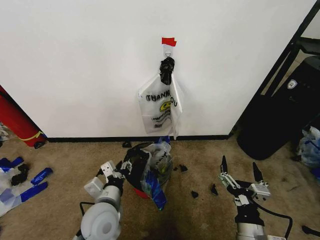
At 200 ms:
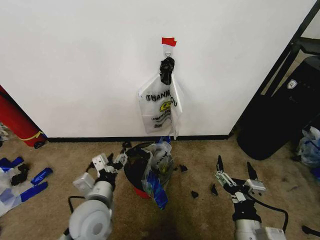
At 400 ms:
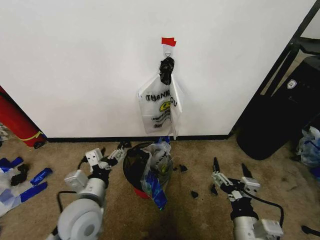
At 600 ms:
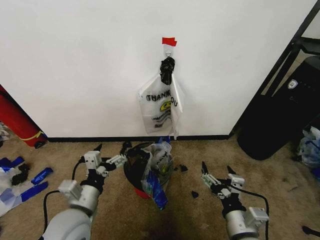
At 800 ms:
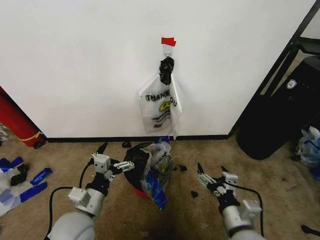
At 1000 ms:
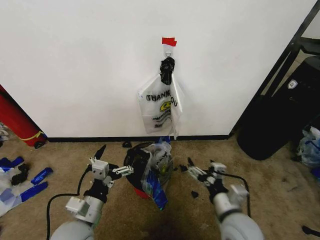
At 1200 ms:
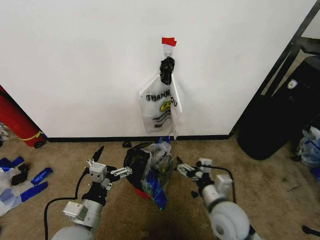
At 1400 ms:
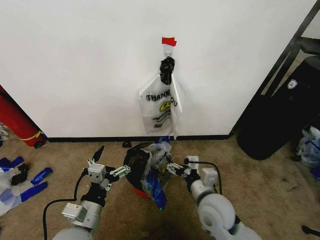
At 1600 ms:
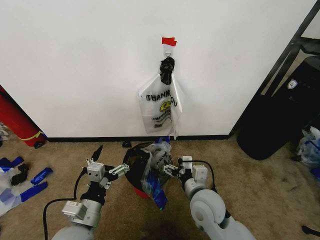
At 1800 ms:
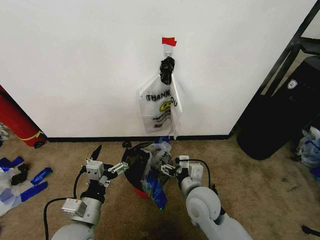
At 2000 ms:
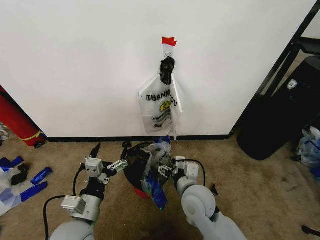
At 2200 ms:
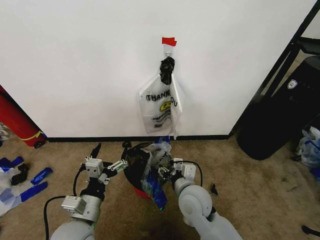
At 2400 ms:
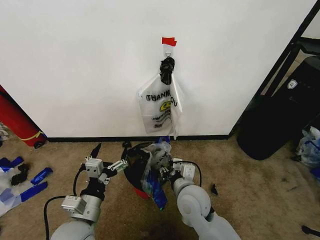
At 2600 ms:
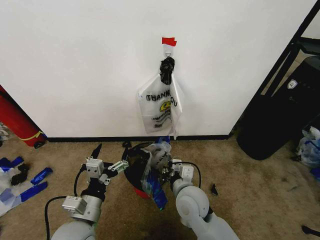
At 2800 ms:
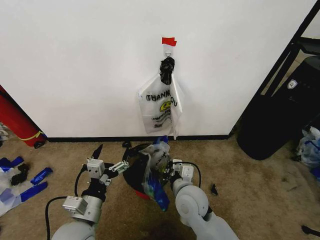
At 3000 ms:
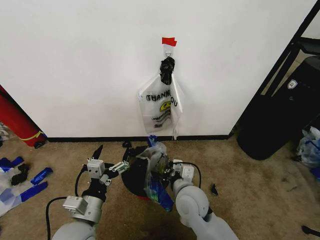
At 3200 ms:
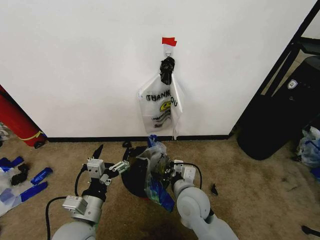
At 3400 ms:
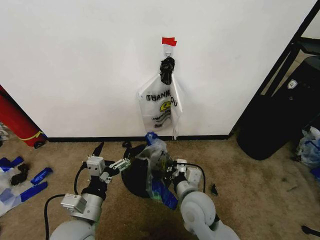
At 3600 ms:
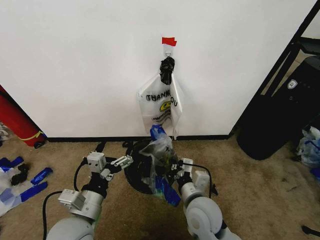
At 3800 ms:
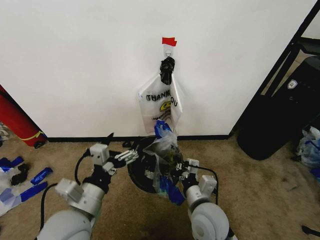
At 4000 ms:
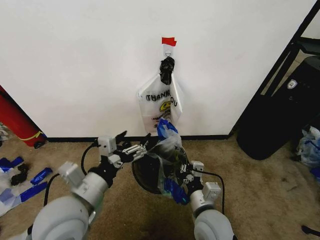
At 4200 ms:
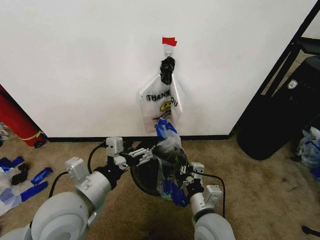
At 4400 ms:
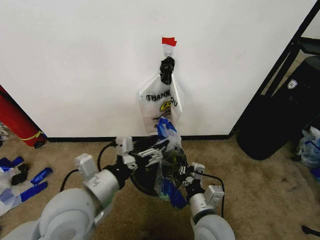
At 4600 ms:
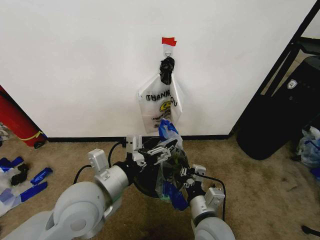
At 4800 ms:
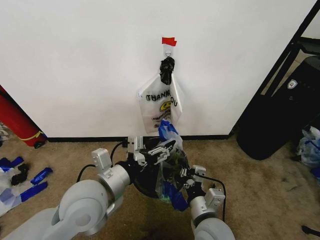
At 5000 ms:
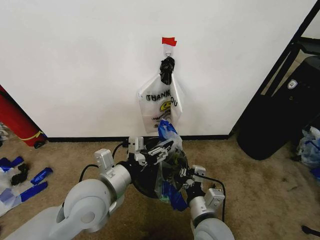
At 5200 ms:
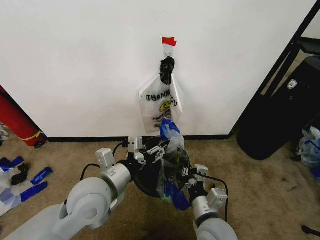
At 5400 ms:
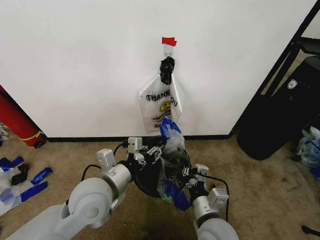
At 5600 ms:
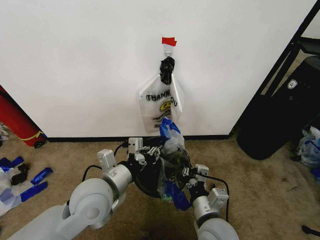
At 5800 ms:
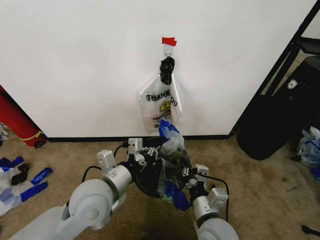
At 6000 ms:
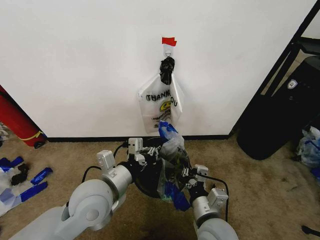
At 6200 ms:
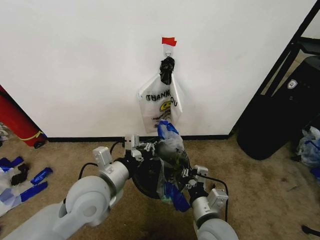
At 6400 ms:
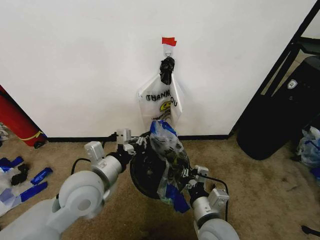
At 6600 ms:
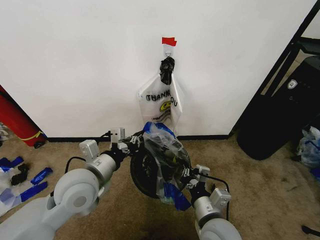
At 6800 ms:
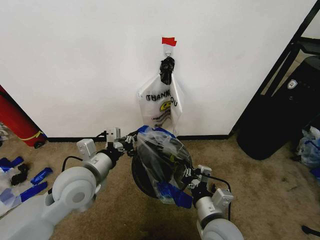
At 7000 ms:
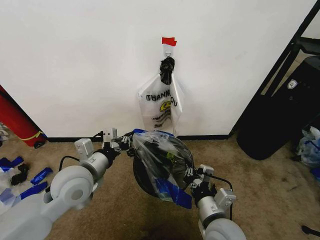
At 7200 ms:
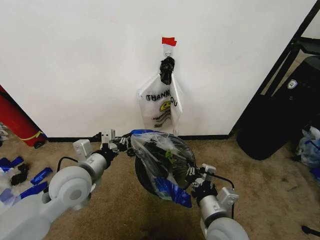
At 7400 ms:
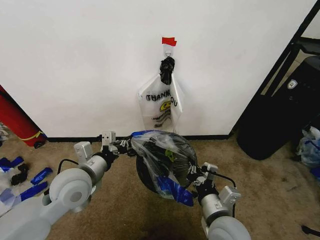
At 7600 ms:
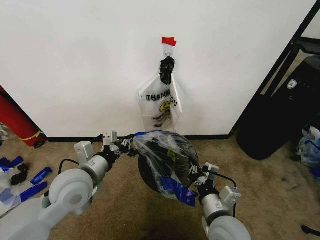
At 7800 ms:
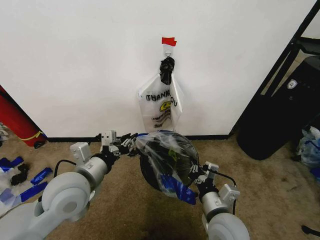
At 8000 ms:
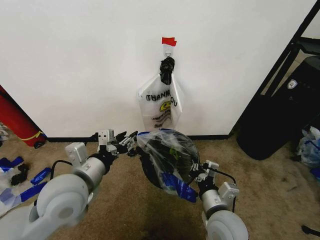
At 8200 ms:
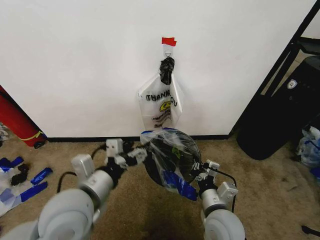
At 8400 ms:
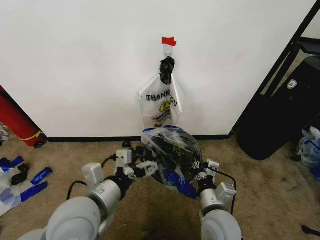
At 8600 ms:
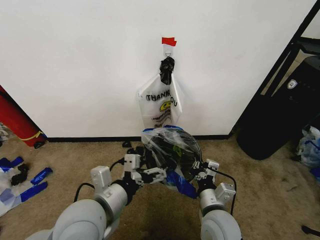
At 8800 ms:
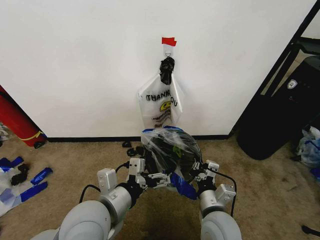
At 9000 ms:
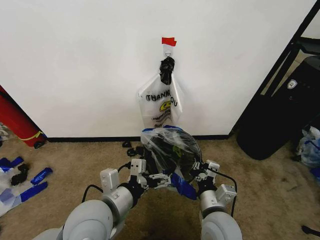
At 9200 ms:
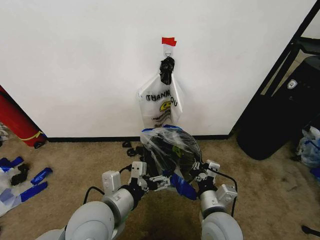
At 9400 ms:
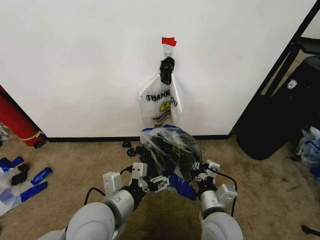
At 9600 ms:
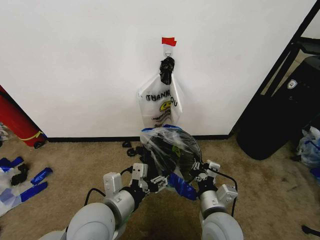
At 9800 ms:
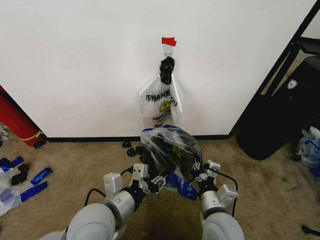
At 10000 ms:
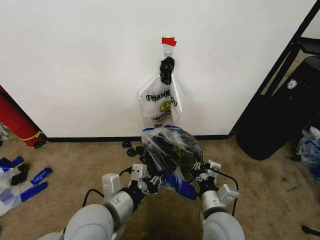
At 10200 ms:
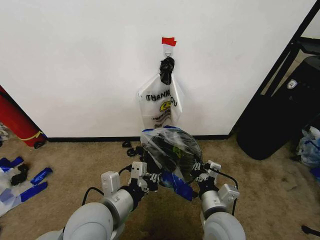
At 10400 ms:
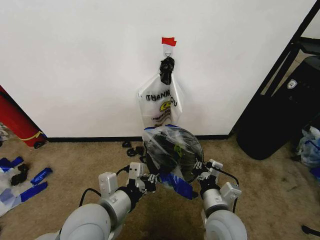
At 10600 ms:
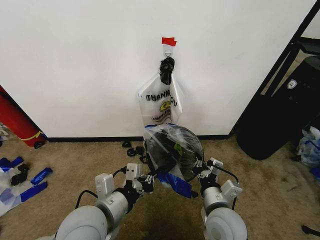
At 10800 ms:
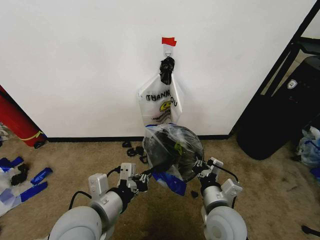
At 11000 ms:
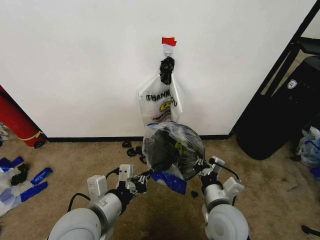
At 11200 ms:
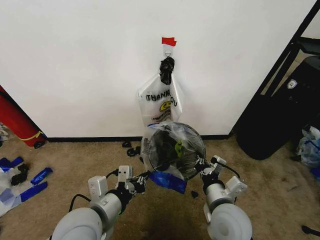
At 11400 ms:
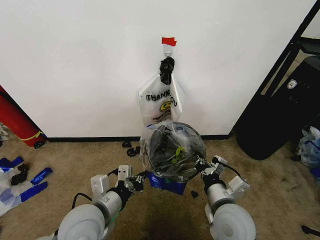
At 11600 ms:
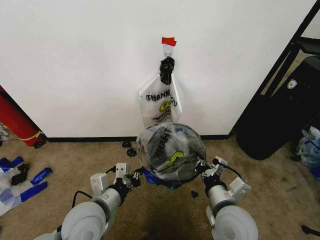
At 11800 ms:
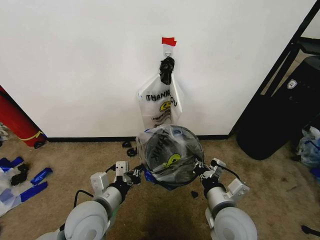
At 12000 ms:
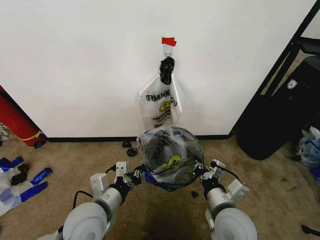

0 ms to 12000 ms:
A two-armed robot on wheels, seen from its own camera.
Task of the whole recording: Pick up the garbage bag from the wall and place it over the trash bin.
0 ms to 1600 ms: The right gripper shifts roughly 15 cm forward and to the left. Meanwhile the left gripper goes about 10 cm backward and to the left, and opens.
1600 ms to 3000 ms: The right gripper closes.
3000 ms to 4400 ms: The left gripper shifts about 10 cm upward; the right gripper shifts about 10 cm backward.
4400 ms to 6000 ms: The left gripper ends up roughly 5 cm from where it was, and closes up.
6000 ms to 7600 ms: The left gripper travels to the left by roughly 5 cm.
7600 ms to 9000 ms: The left gripper heads backward and to the right, covering roughly 10 cm, and opens its fingers.
9000 ms to 10400 ms: The left gripper closes its fingers.
10400 ms to 12000 ms: The left gripper changes place by about 5 cm.

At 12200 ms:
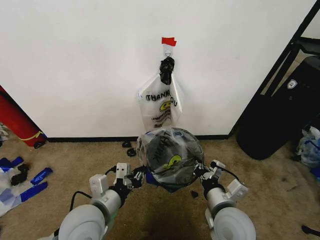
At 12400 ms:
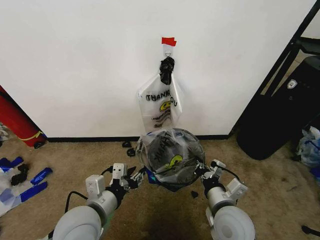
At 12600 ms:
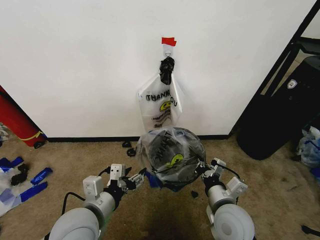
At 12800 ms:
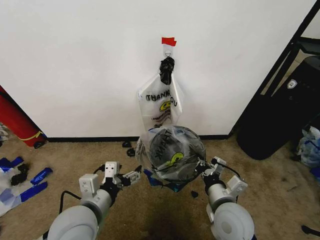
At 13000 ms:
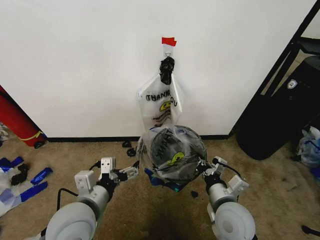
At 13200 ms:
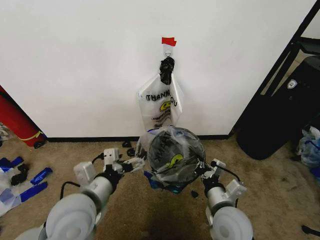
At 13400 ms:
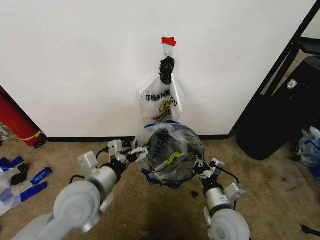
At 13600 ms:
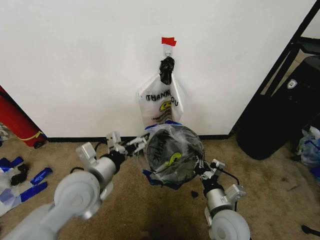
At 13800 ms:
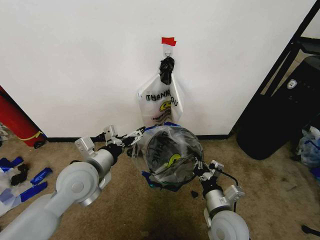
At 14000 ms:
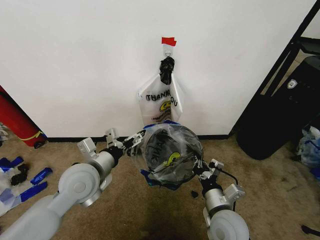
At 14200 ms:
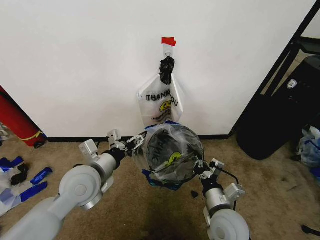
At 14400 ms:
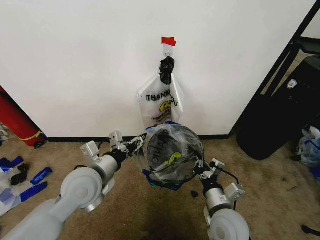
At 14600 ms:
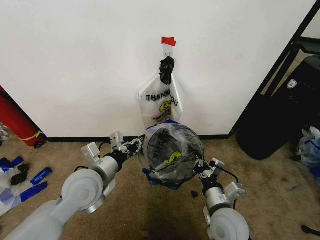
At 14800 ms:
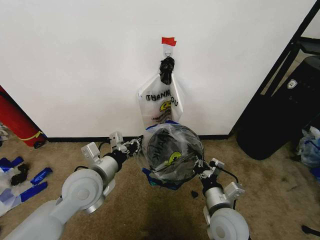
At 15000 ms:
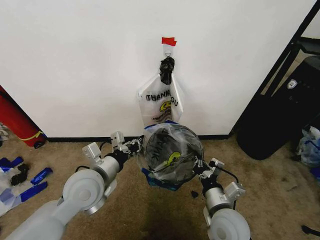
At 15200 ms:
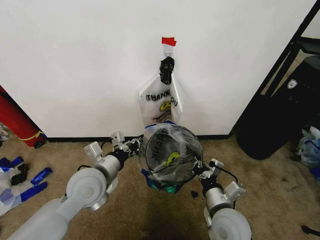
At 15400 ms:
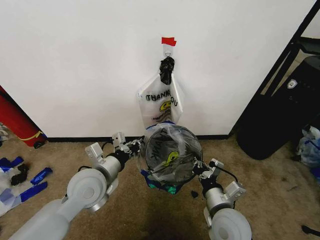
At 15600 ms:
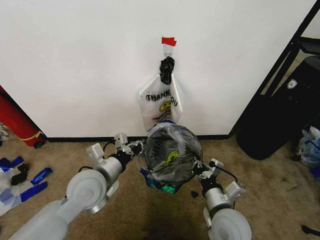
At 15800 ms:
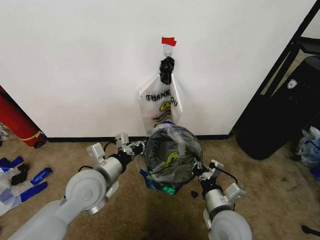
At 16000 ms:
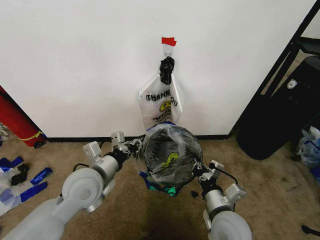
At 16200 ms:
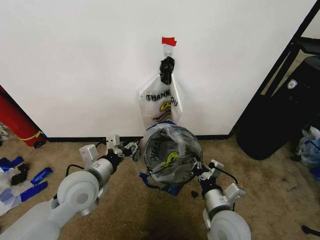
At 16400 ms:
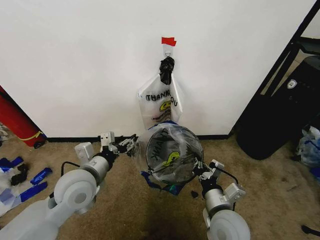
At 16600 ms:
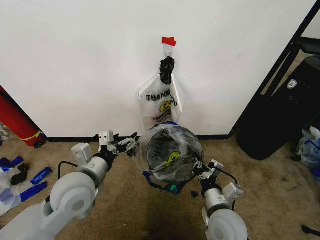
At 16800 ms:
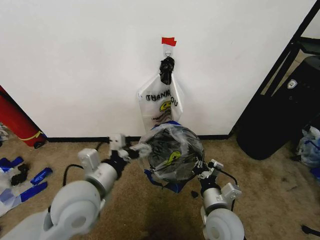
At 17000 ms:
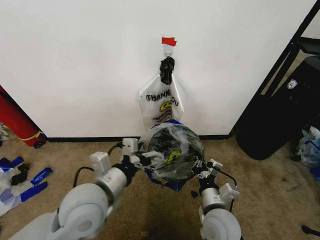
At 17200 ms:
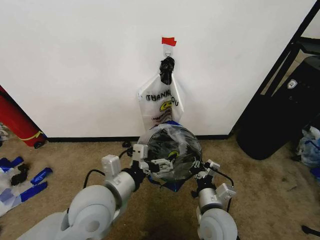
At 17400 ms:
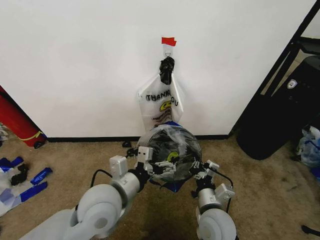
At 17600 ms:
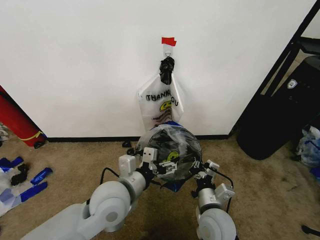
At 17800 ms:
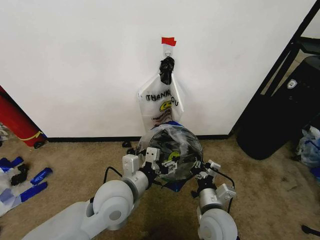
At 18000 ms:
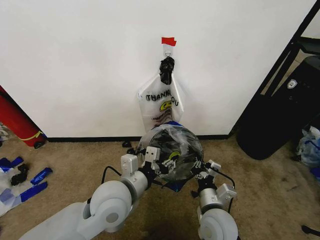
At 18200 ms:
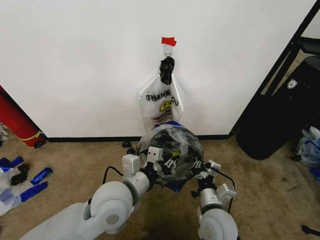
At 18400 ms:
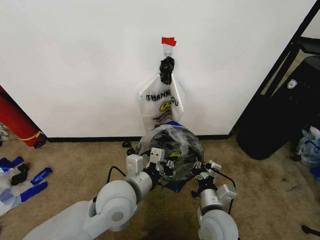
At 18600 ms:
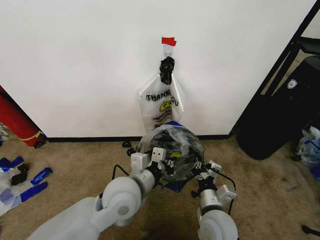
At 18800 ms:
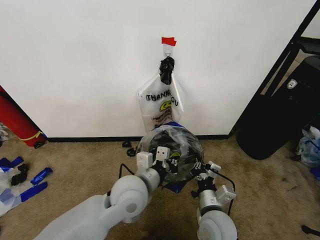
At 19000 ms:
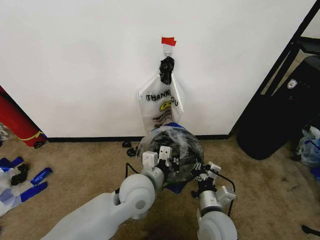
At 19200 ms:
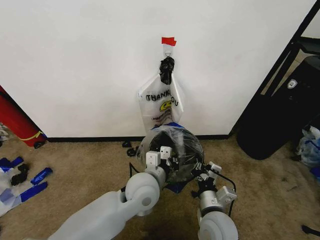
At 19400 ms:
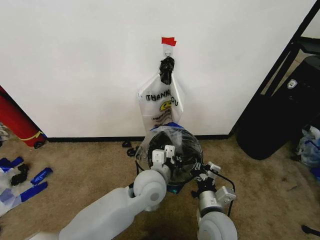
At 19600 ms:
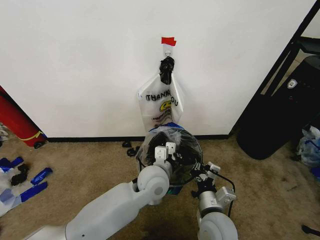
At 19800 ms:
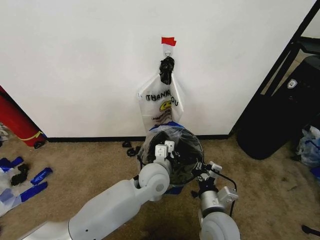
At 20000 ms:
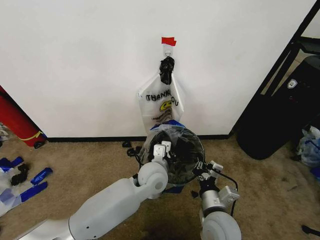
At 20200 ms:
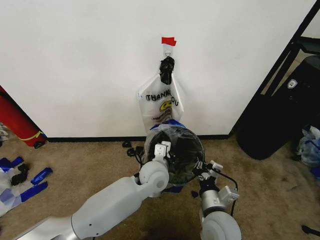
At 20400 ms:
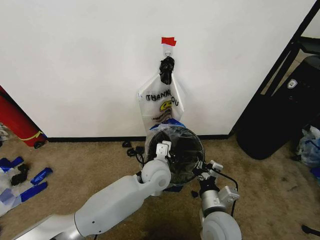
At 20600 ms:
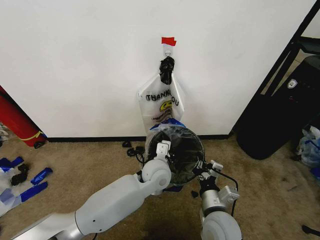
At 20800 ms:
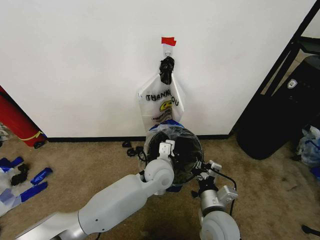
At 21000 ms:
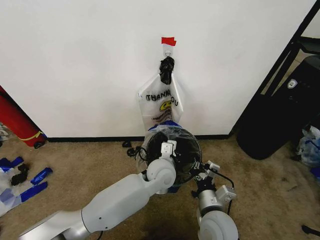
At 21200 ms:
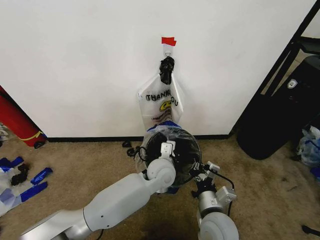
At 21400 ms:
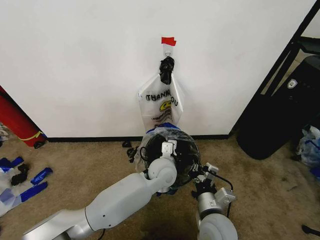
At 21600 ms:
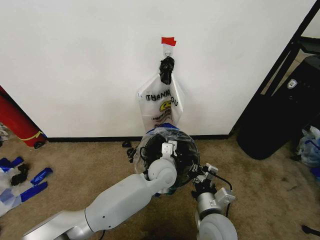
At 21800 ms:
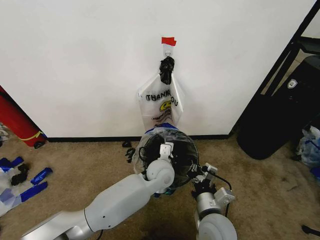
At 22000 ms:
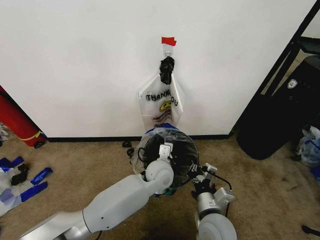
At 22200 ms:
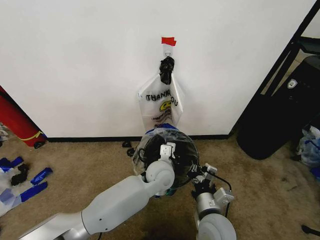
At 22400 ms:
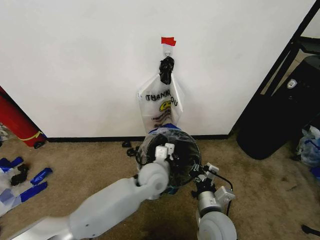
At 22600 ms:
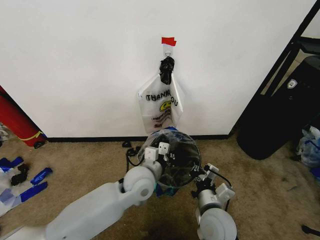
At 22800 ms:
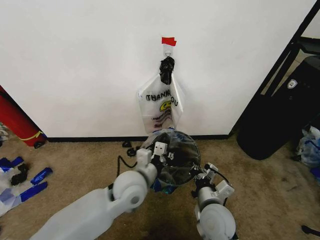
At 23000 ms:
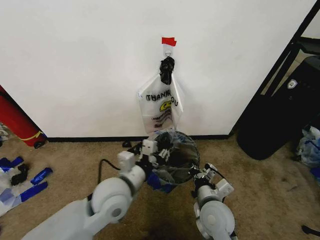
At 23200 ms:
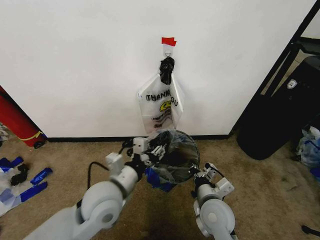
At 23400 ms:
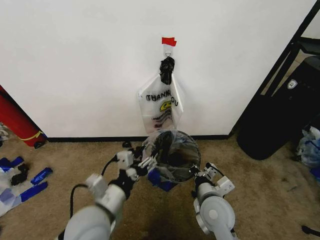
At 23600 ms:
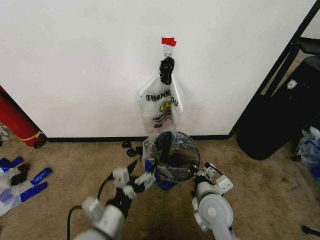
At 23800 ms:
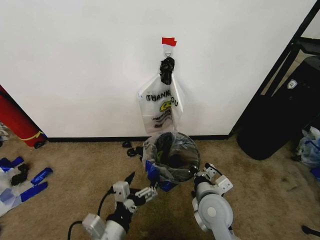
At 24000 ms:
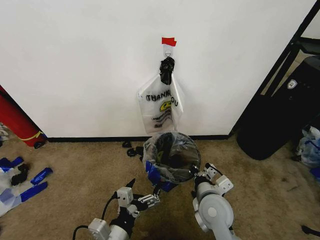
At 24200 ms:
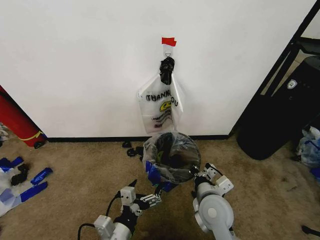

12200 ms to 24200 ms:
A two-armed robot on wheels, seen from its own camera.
Task of the whole recording: Pick up the garbage bag from the wall and place it over the trash bin.
12200 ms to 13800 ms: The left gripper heads forward, covering roughly 10 cm, and opens.
13800 ms to 15200 ms: The left gripper closes its fingers.
15200 ms to 16600 ms: The left gripper opens its fingers.
16600 ms to 18200 ms: The left gripper travels to the right by approximately 10 cm, and closes up.
18200 ms to 19800 ms: The left gripper shifts roughly 15 cm forward, to the right and downward.
19800 ms to 21200 ms: There are only small adjustments of the grippers.
21200 ms to 22600 ms: The left gripper heads to the left, covering roughly 5 cm.
22600 ms to 24200 ms: The left gripper goes roughly 20 cm backward and to the left, and opens its fingers.
